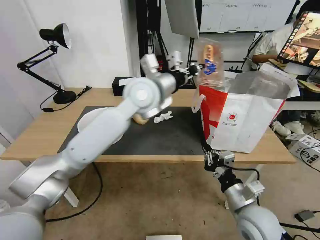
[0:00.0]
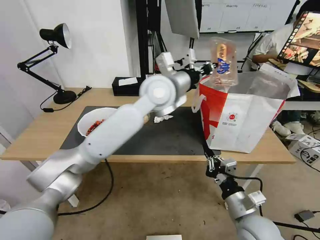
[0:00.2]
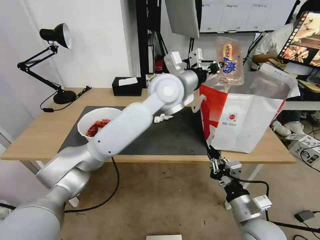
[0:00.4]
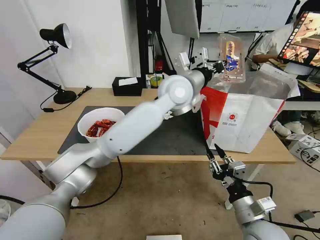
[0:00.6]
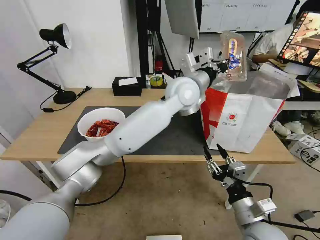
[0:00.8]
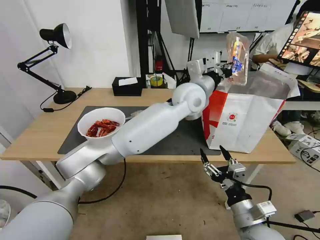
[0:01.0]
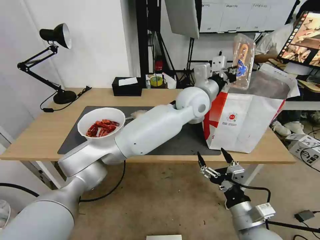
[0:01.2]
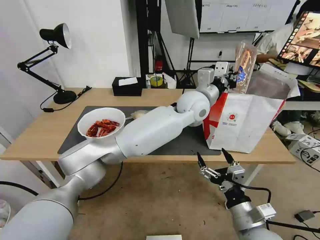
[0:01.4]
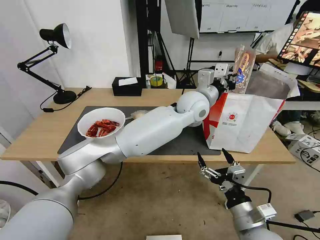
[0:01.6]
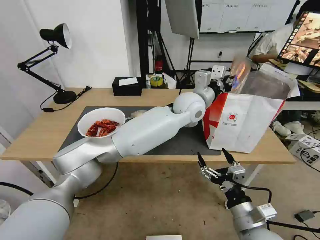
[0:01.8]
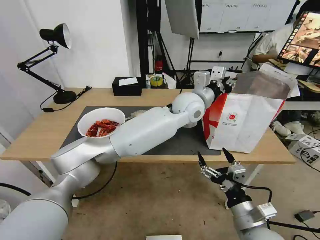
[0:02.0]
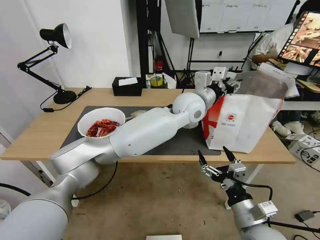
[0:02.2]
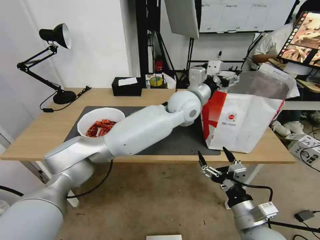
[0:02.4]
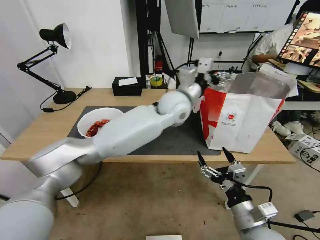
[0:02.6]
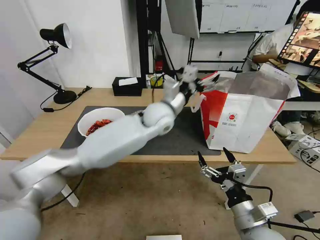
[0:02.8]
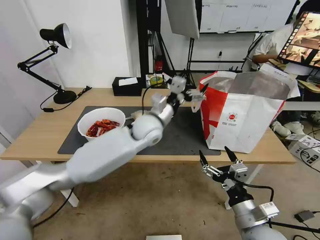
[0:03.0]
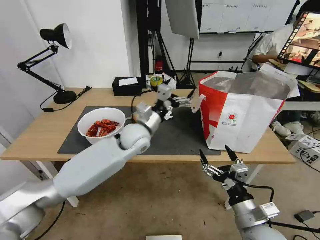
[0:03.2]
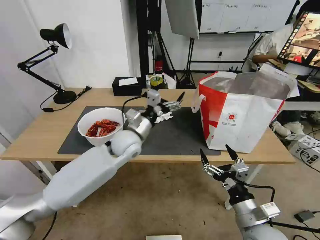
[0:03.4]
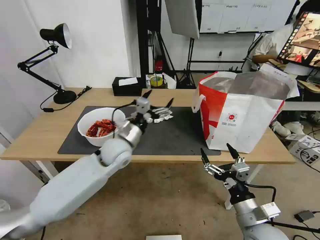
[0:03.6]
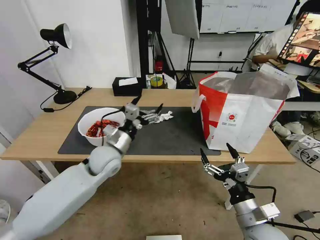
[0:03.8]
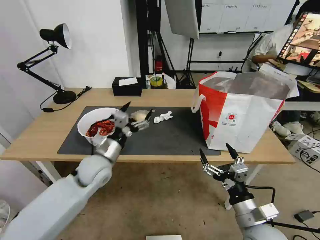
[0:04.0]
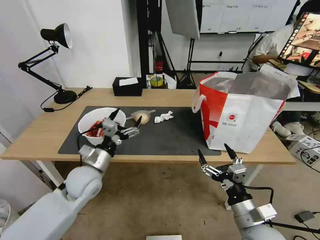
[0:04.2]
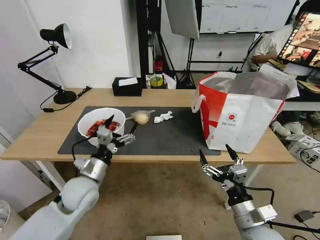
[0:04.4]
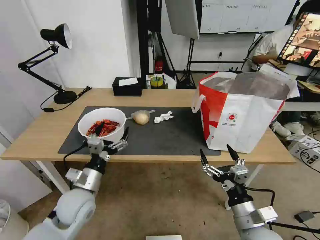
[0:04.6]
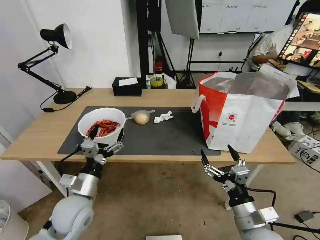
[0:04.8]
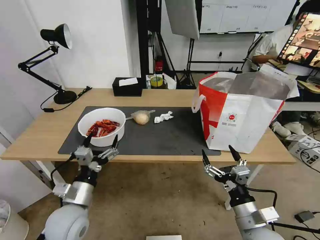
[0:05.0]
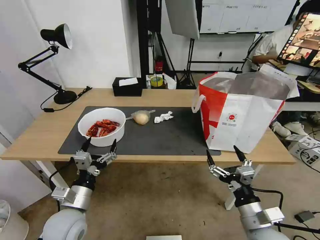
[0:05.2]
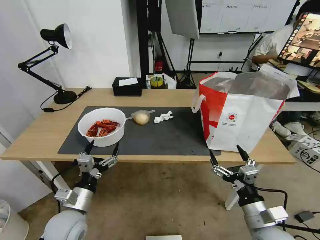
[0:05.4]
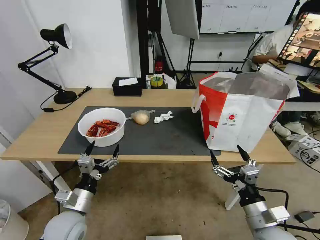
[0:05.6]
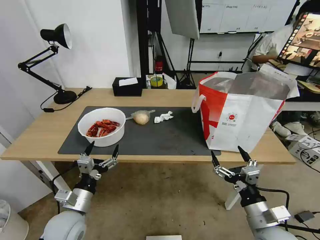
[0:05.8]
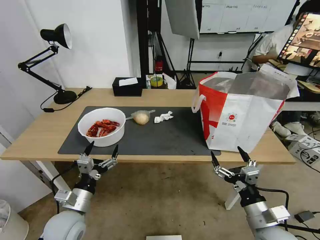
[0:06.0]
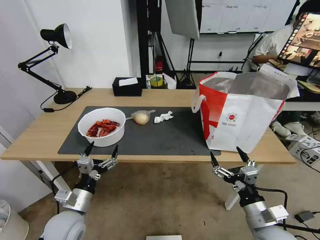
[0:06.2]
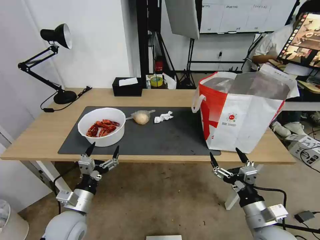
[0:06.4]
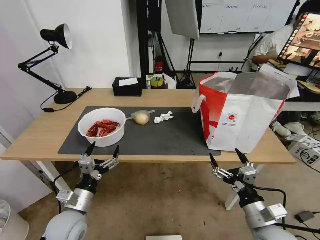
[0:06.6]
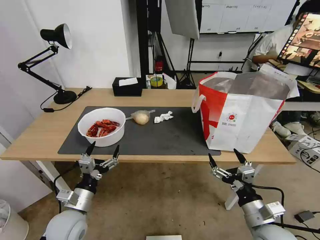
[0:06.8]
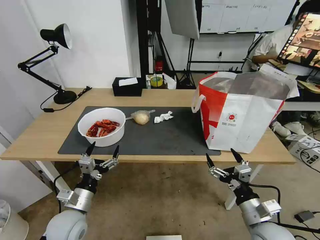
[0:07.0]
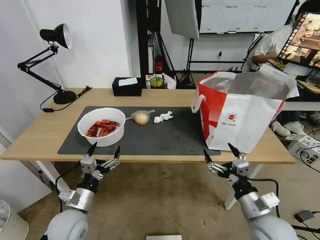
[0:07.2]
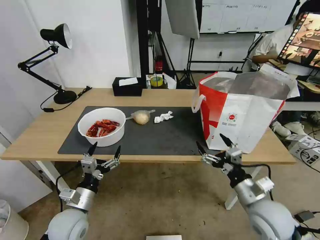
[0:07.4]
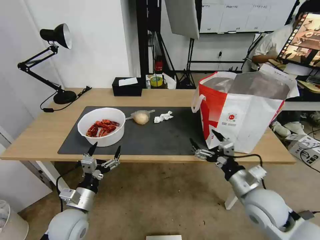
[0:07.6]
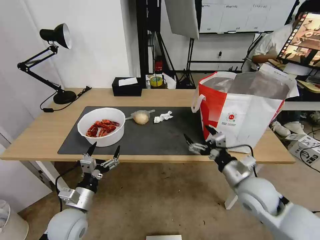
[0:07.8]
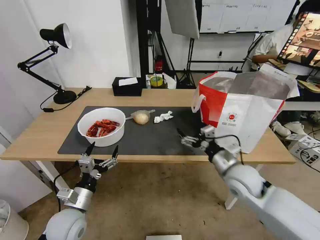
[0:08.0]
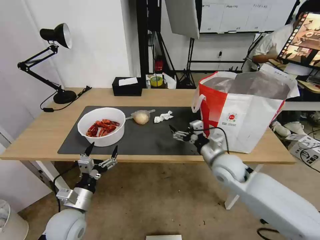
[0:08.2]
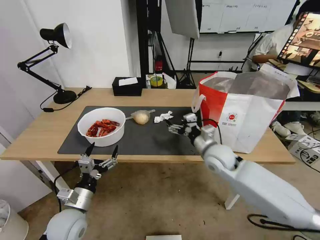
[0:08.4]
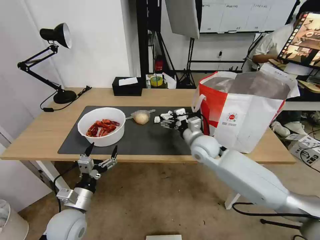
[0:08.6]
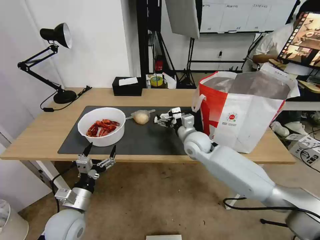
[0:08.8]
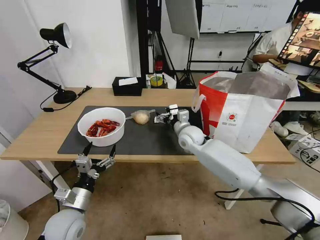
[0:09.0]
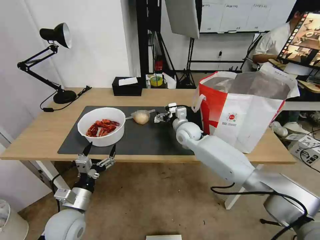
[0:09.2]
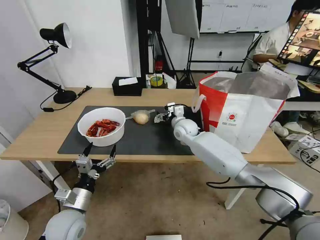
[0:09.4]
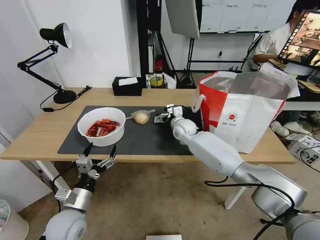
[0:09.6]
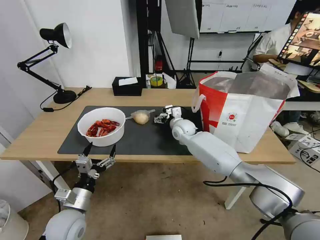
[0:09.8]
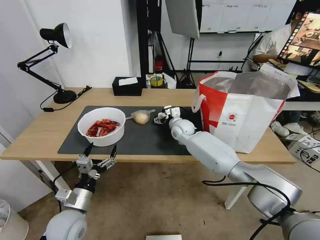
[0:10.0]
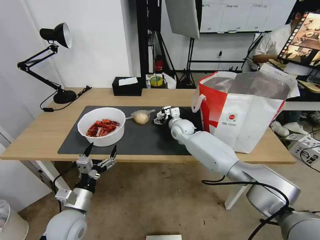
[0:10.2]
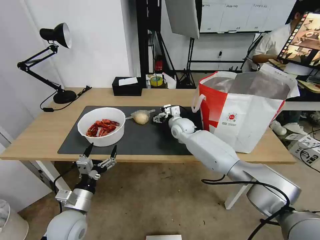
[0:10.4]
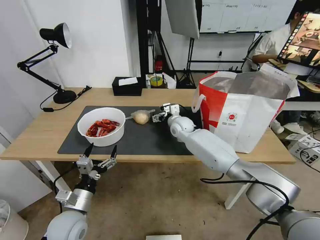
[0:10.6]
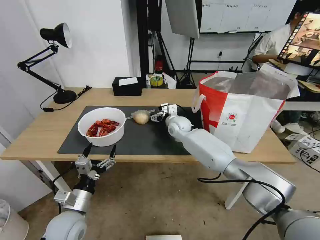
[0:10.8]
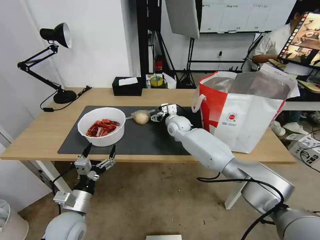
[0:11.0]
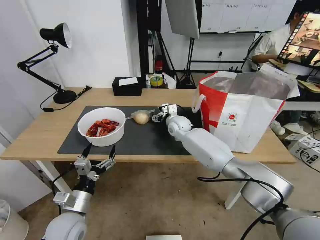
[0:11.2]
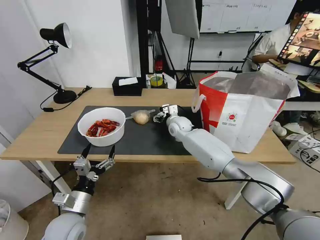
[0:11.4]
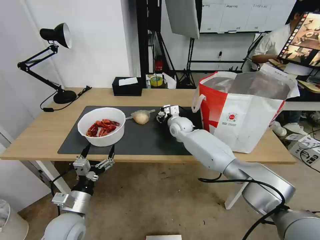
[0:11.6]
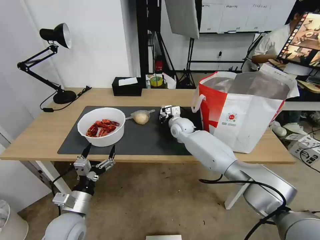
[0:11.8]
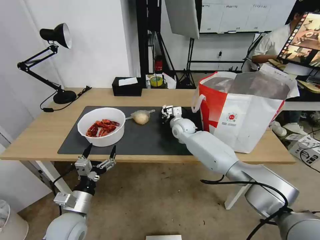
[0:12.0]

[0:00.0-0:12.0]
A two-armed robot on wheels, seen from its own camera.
Task of the whole recording: Pick up the trash from the table and place it into the takeout bag.
0:00.0 to 0:01.6: The left gripper shifts roughly 15 cm to the right and downward; the right gripper moves backward, some 5 cm, and opens its fingers.
0:01.6 to 0:03.0: The left gripper is displaced to the left and downward by roughly 15 cm, and opens.
0:03.0 to 0:04.4: The left gripper shifts roughly 25 cm to the left, backward and downward.
0:04.4 to 0:06.0: The left gripper shifts roughly 10 cm backward.
0:06.0 to 0:07.6: The right gripper goes approximately 10 cm forward.
0:07.6 to 0:09.0: The right gripper moves forward and to the left, about 30 cm.
0:09.0 to 0:10.4: The right gripper is displaced forward by about 5 cm.
0:10.4 to 0:12.0: The right gripper closes its fingers.

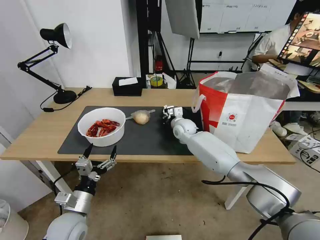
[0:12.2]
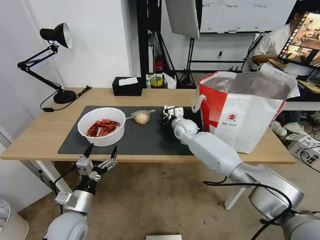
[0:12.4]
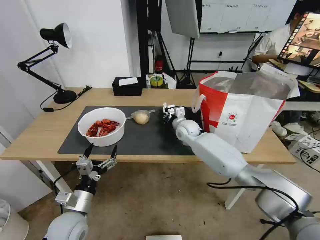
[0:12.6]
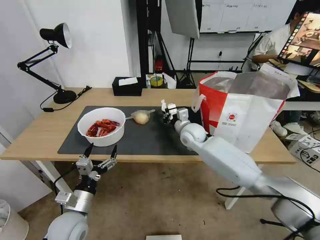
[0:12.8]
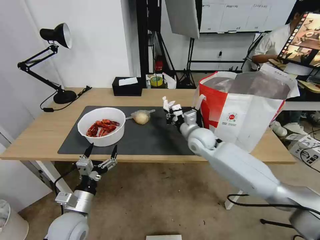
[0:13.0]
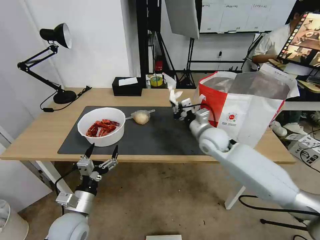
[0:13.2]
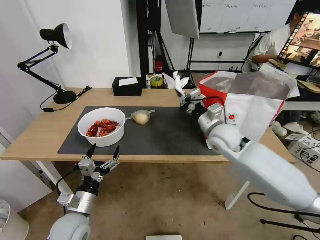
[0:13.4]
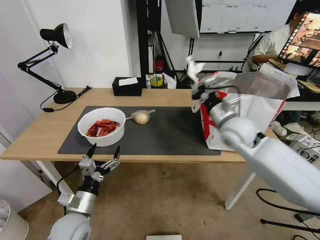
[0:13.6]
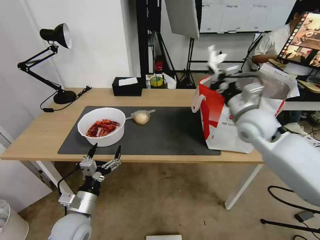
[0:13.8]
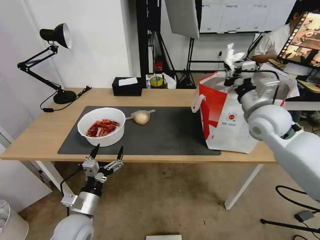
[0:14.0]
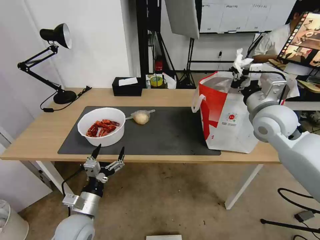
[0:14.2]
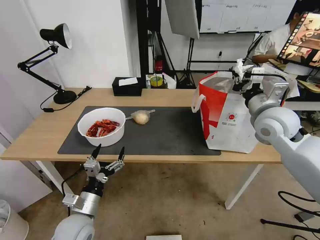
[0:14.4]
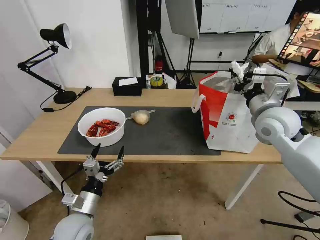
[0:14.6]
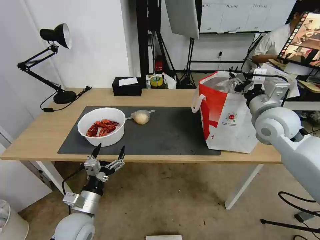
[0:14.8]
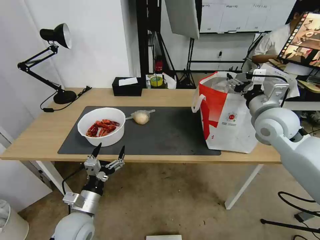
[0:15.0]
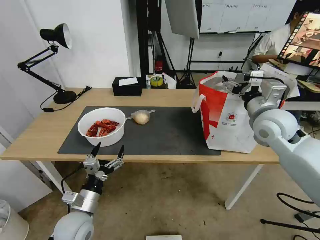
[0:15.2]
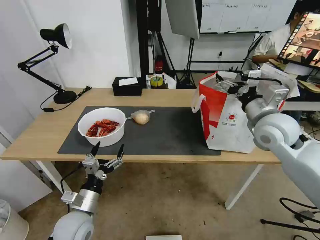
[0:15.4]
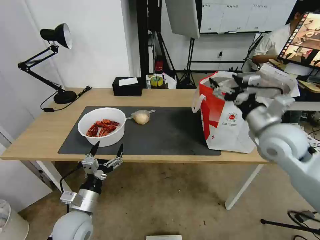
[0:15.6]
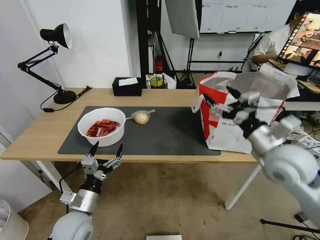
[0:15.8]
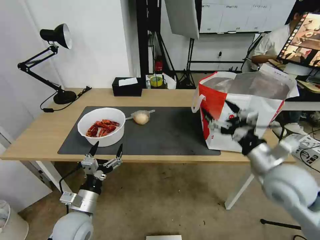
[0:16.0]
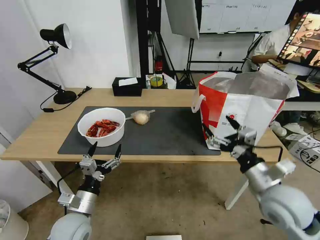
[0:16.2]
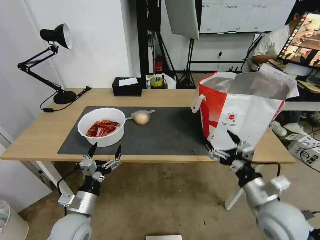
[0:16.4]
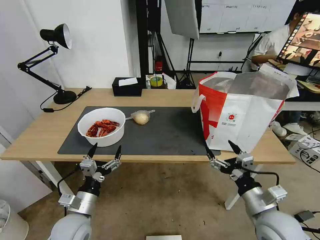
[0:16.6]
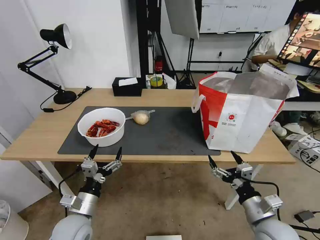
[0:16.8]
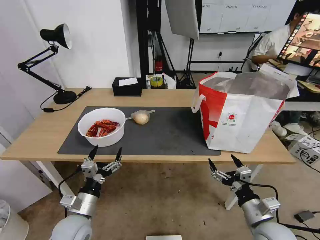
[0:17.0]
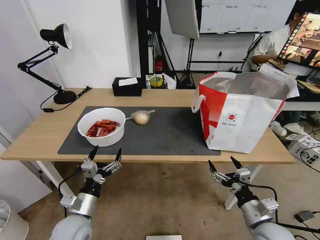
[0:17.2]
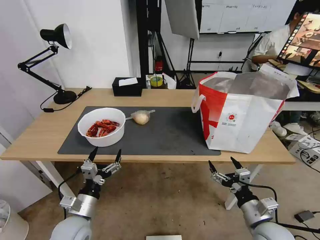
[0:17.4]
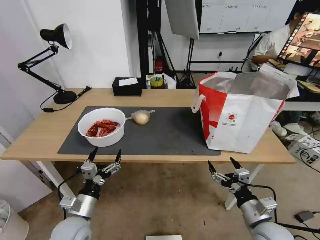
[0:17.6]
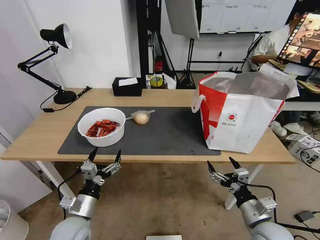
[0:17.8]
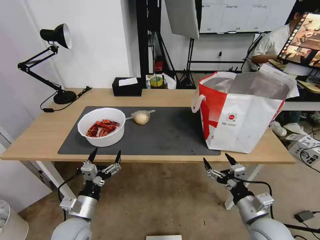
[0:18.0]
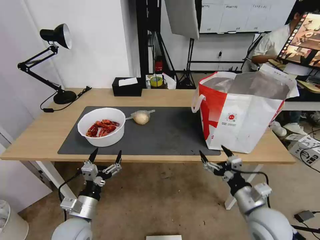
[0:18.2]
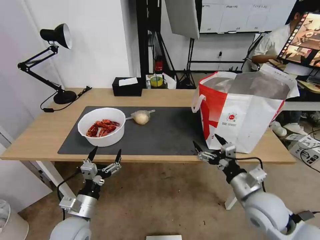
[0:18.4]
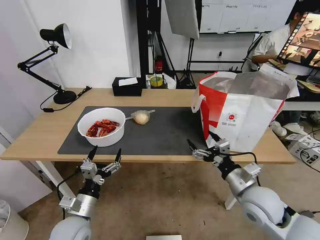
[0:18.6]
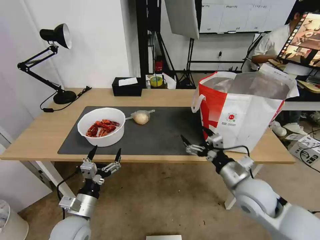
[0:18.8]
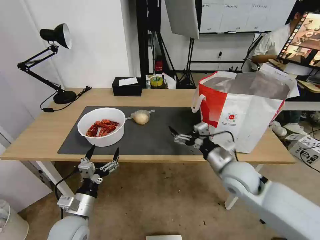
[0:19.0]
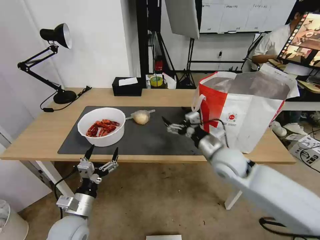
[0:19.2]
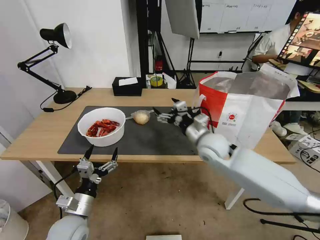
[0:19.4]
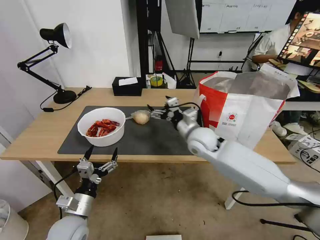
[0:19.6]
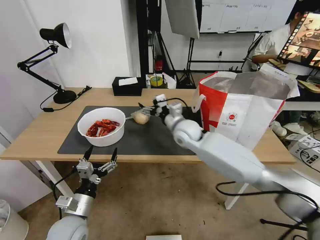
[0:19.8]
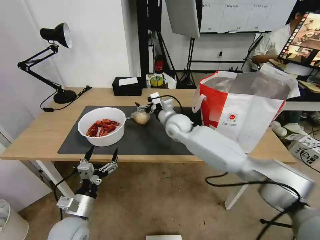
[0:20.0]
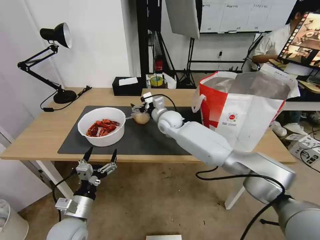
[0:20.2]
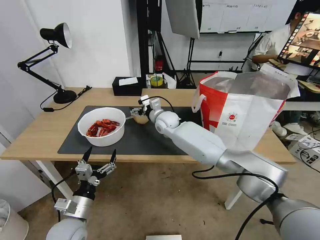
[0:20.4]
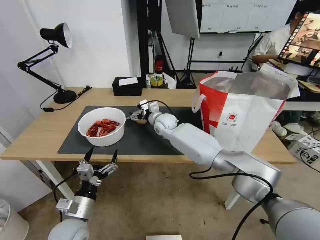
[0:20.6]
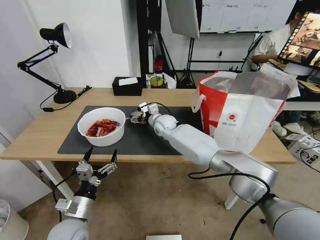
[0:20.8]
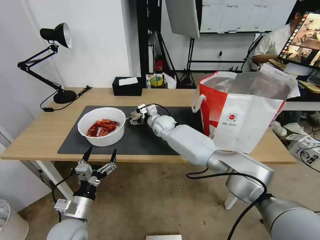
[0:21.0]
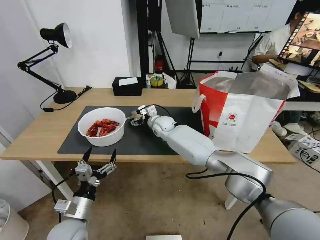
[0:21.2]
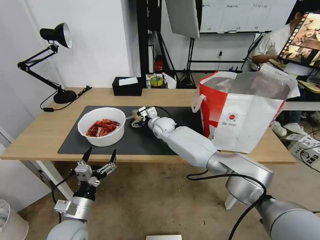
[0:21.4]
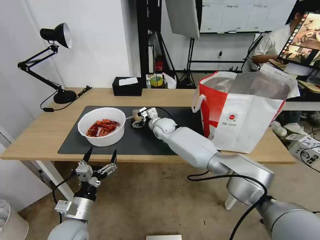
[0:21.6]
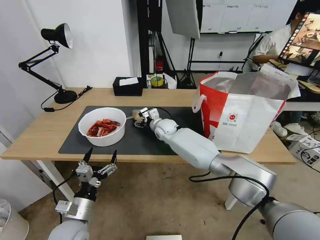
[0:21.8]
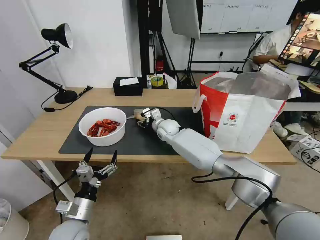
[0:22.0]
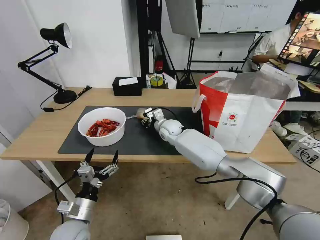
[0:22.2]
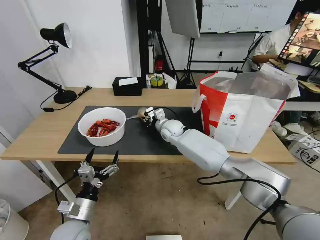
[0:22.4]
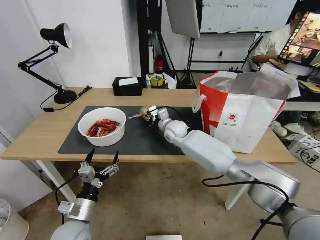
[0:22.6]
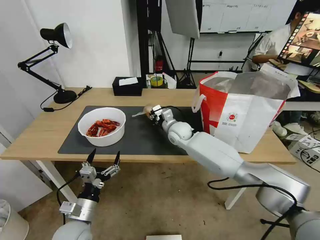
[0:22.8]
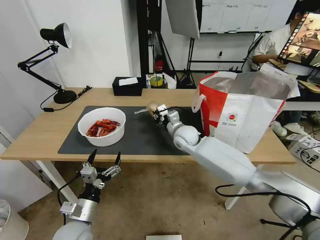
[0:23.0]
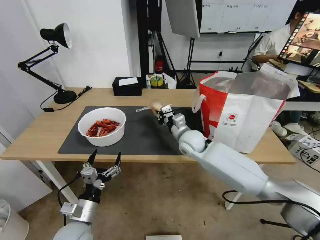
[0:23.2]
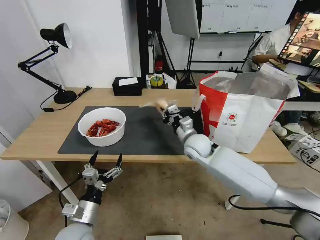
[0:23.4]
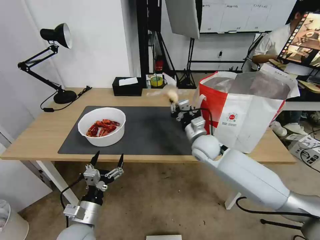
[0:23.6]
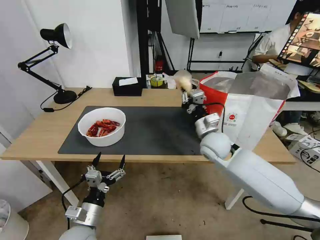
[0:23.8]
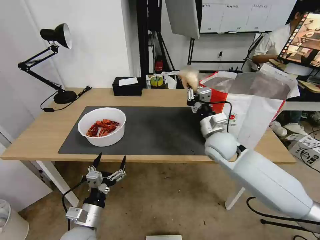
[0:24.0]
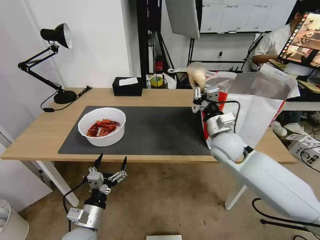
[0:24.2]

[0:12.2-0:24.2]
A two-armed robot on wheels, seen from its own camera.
Task of the whole recording: Pick up the trash from the table and place it into the takeout bag.
0:12.2 to 0:13.8: The right gripper is displaced upward, to the right and backward by approximately 30 cm.
0:13.8 to 0:15.2: The right gripper opens up.
0:15.2 to 0:16.6: The right gripper is displaced backward and downward by approximately 25 cm.
0:18.2 to 0:19.8: The right gripper shifts approximately 35 cm forward and to the left.
0:19.8 to 0:21.2: The right gripper is displaced forward, to the left and downward by some 15 cm.
0:21.2 to 0:22.6: The right gripper is displaced to the right by about 5 cm, and closes up.
0:22.6 to 0:24.2: The right gripper goes approximately 20 cm to the right, backward and upward.
